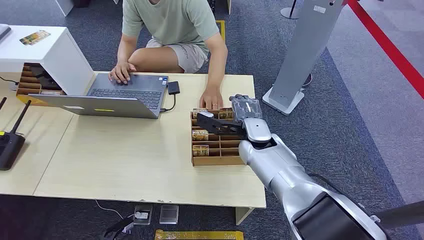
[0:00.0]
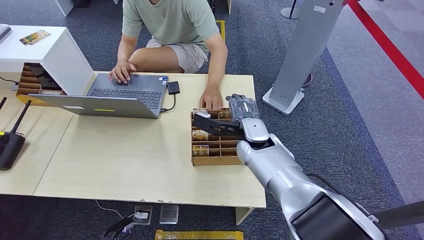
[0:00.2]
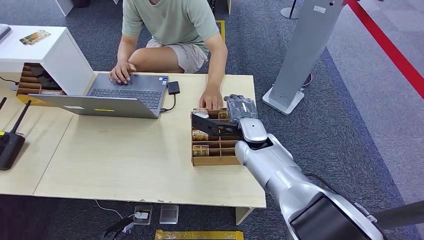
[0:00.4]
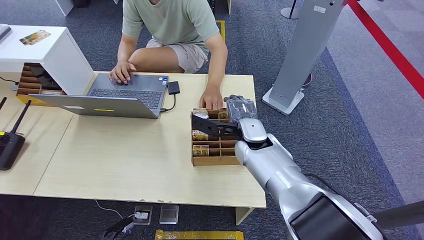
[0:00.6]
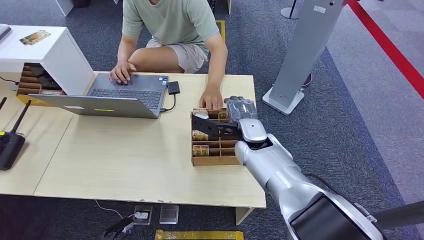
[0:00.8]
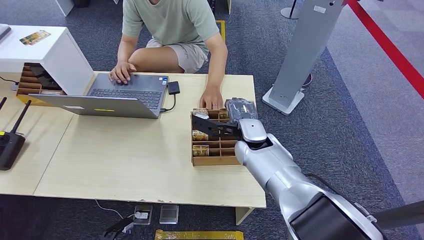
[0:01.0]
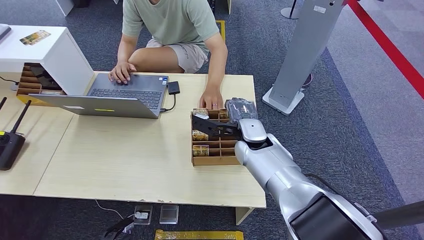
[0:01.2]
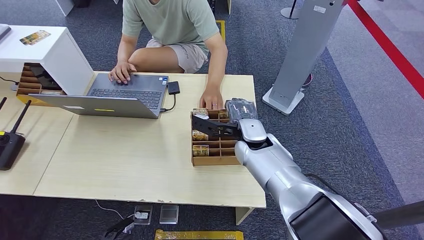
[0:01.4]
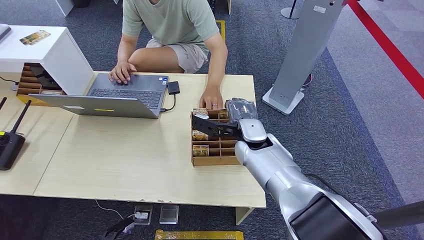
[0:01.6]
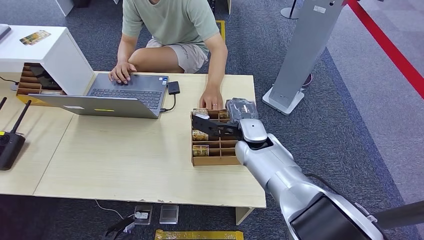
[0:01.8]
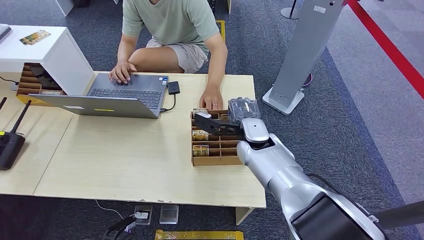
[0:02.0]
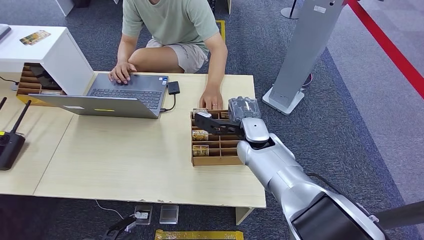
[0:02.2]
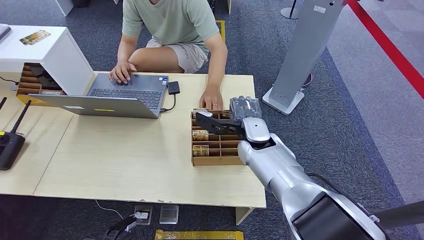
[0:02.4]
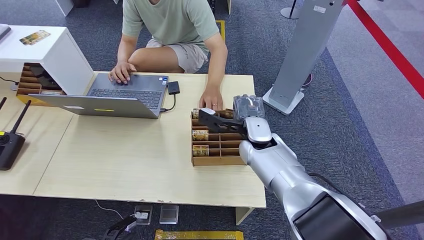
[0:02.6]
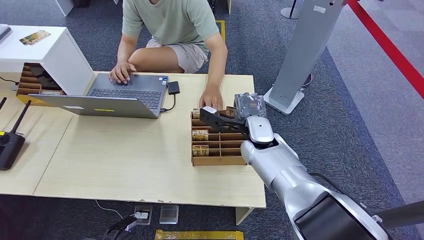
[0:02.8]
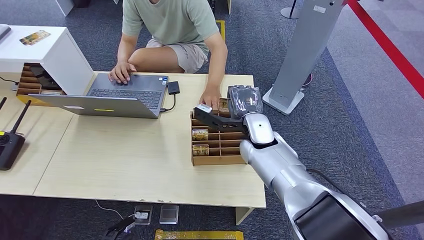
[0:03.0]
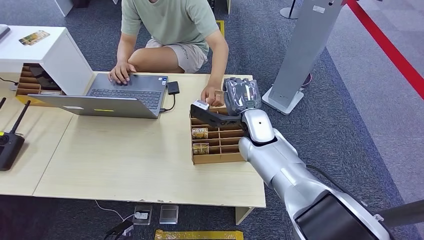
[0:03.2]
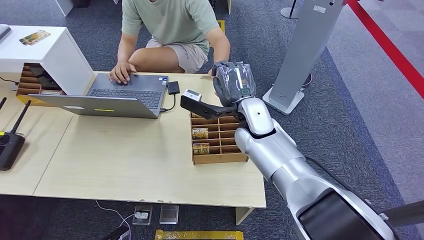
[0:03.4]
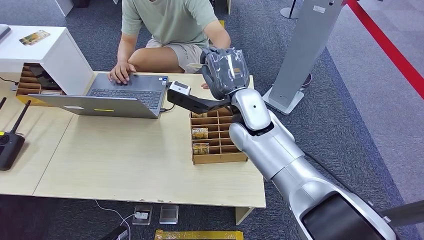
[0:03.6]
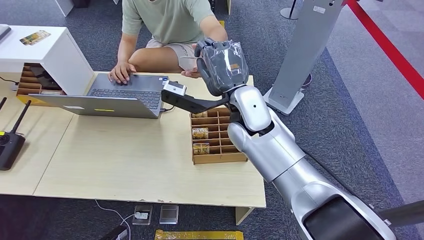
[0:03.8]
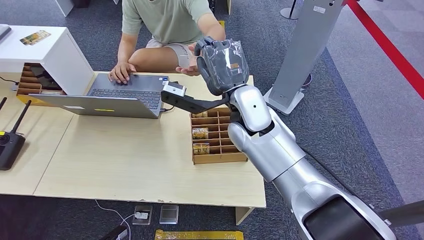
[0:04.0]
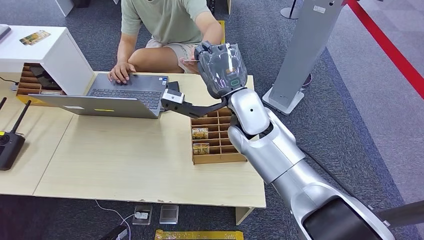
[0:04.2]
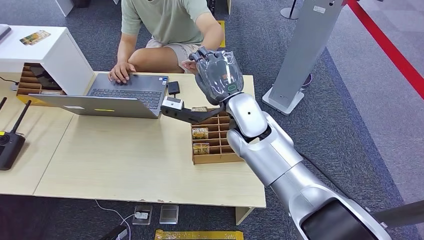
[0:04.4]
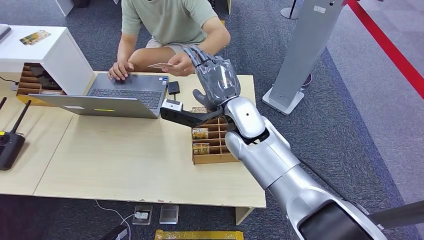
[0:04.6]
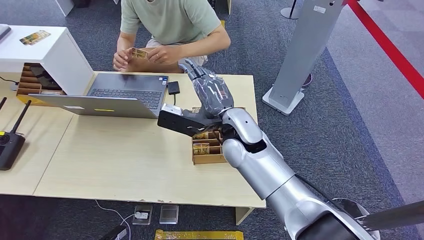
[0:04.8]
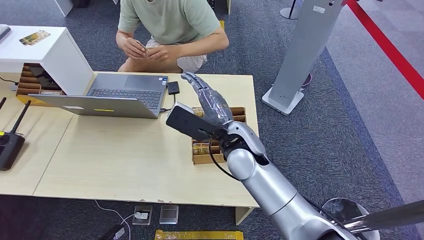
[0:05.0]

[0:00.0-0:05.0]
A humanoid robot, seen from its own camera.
Step, 0:00.0 to 0:03.0: Pick up the key card from the card box.
Step, 0:04.0 to 0:05.0: Hand the key card to the target.
0:01.6 to 0:03.4: The right hand goes about 5 cm upward.
0:03.4 to 0:05.0: The right hand travels backward by roughly 5 cm.

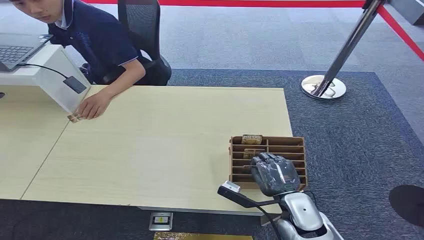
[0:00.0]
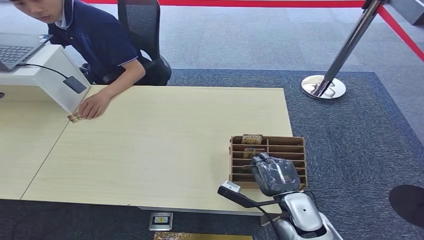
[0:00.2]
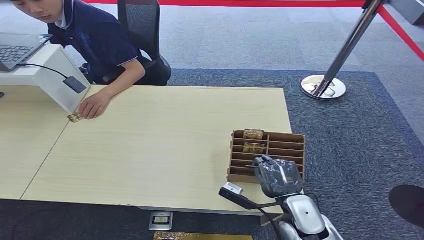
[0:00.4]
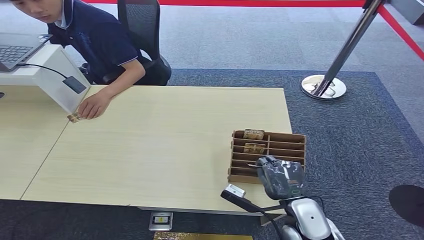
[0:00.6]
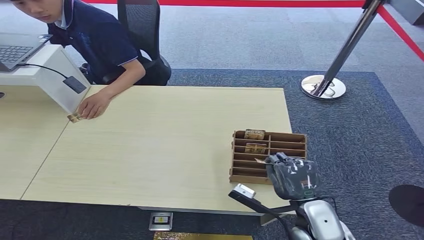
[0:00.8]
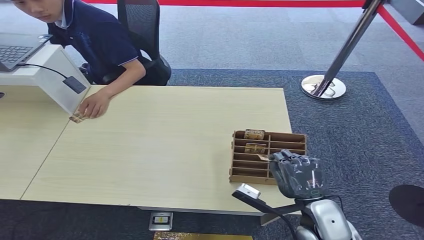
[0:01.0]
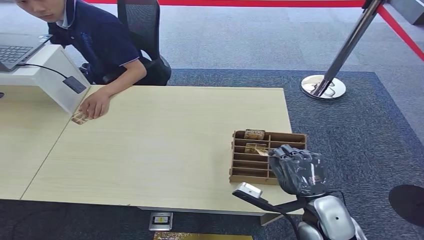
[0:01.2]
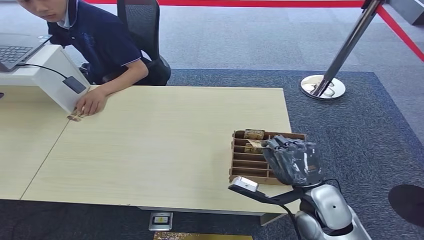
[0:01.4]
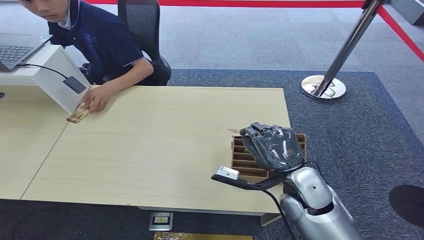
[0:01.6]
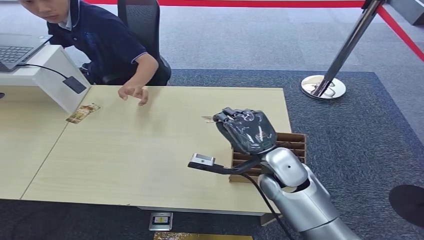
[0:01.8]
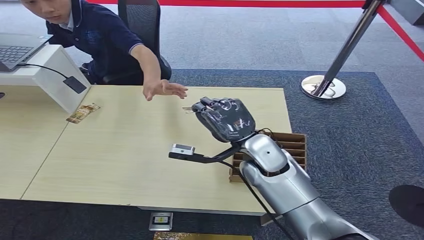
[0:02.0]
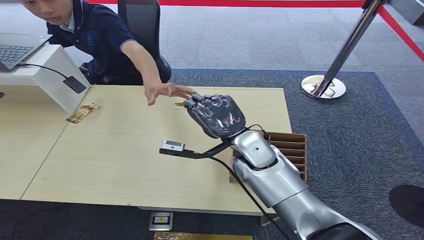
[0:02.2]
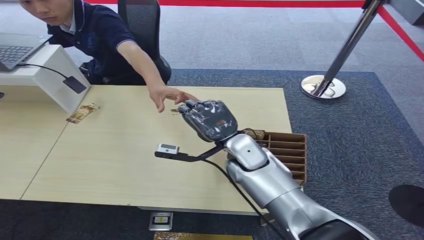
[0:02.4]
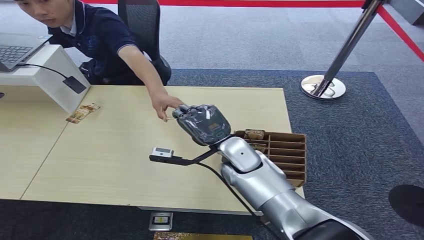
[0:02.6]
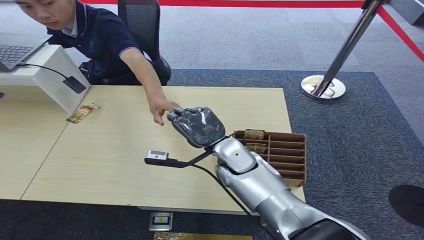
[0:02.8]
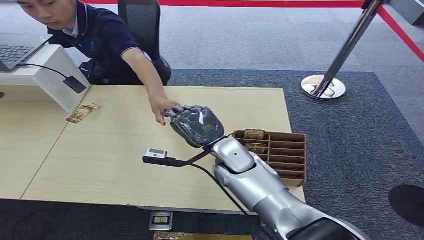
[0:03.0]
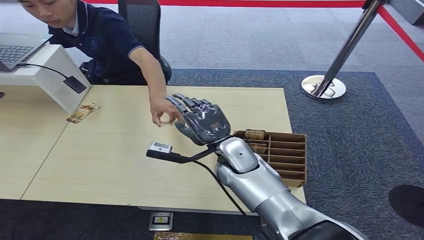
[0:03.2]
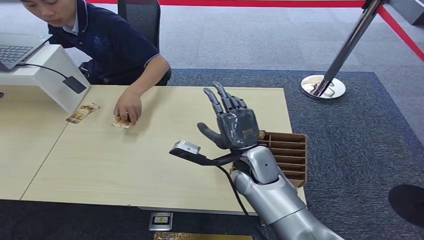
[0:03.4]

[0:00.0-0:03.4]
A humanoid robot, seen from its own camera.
Step, 0:00.0 to 0:01.6: Pick up the key card from the card box.
Step, 0:02.0 to 0:03.4: Hand the key card to the target.
0:01.6 to 0:03.4: The right hand moves to the left and forward, approximately 10 cm.
